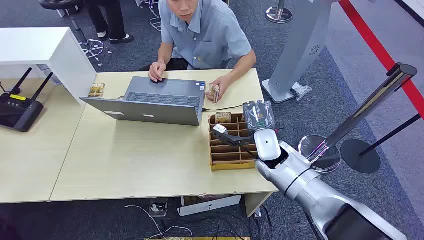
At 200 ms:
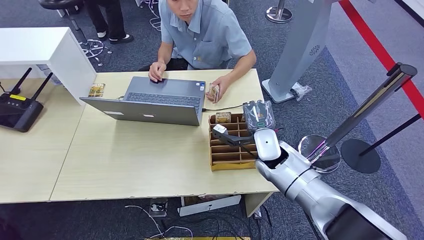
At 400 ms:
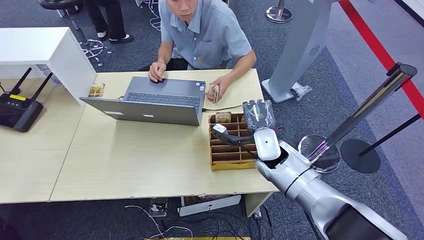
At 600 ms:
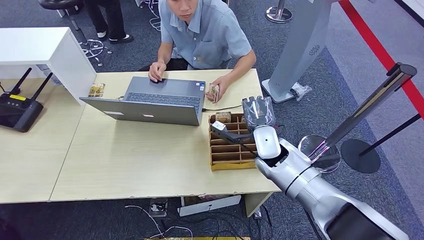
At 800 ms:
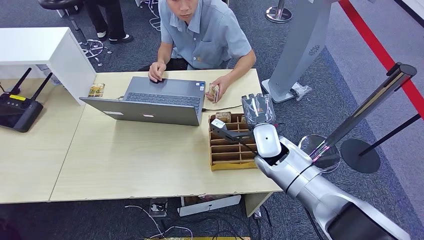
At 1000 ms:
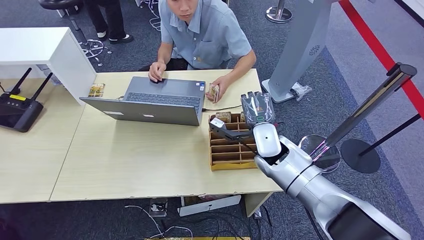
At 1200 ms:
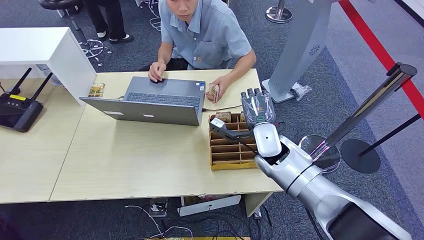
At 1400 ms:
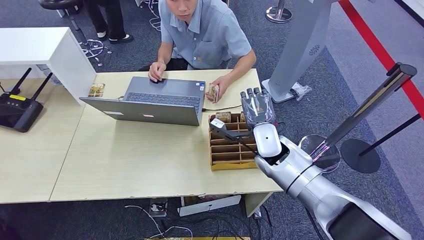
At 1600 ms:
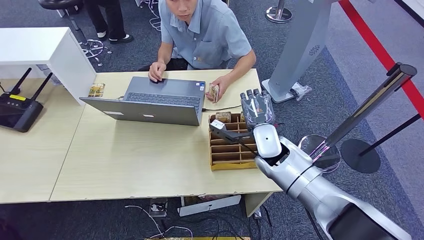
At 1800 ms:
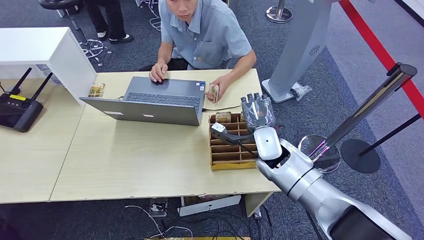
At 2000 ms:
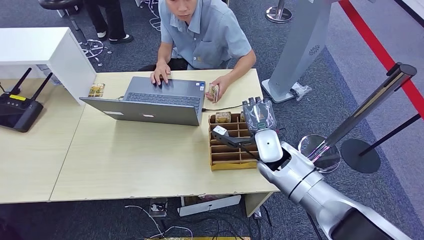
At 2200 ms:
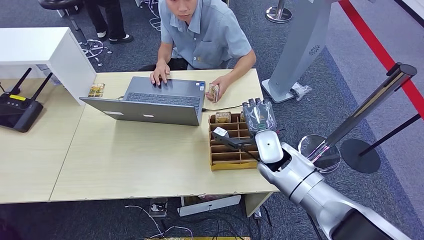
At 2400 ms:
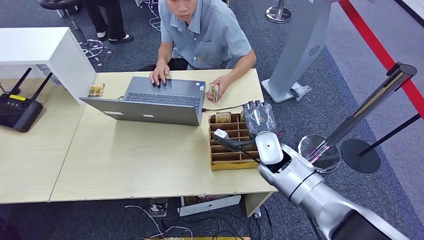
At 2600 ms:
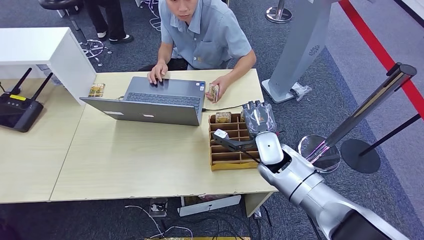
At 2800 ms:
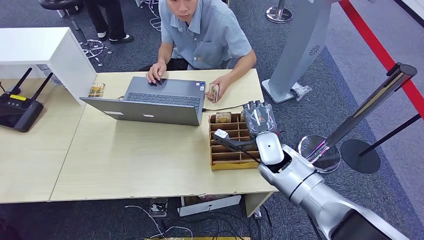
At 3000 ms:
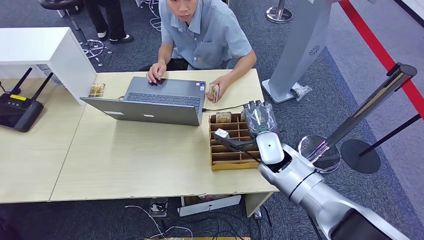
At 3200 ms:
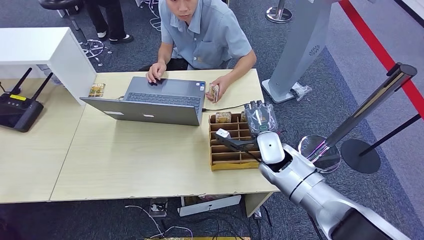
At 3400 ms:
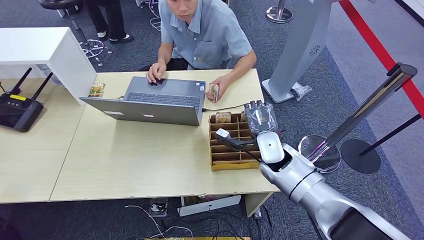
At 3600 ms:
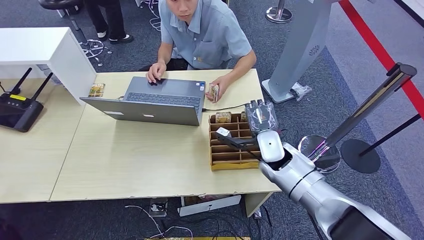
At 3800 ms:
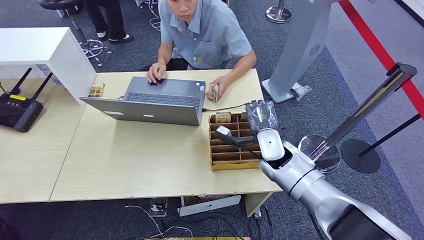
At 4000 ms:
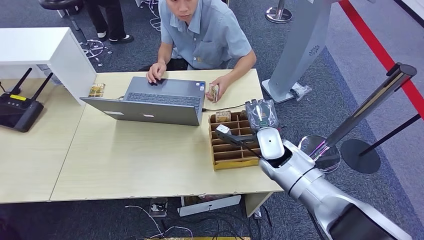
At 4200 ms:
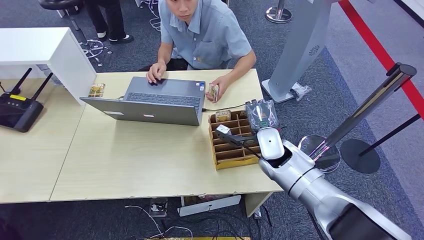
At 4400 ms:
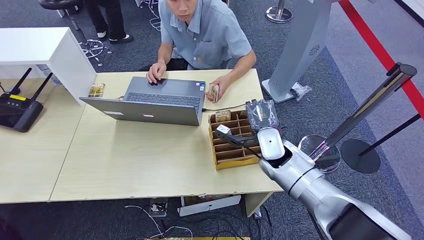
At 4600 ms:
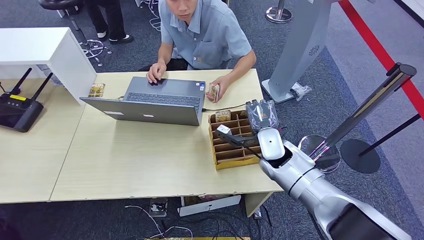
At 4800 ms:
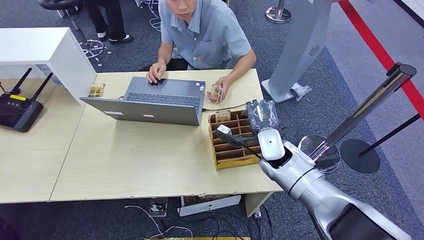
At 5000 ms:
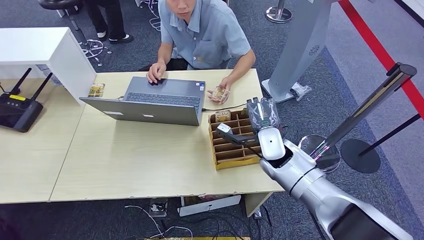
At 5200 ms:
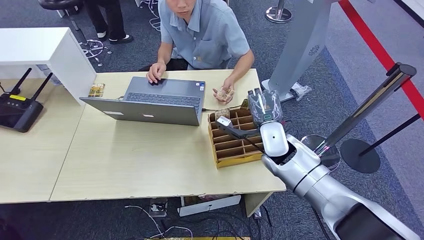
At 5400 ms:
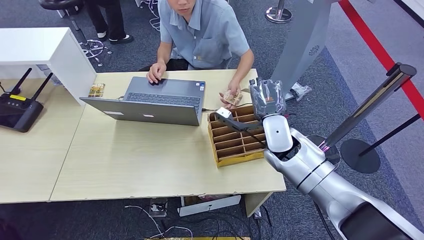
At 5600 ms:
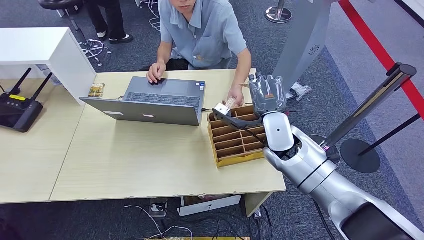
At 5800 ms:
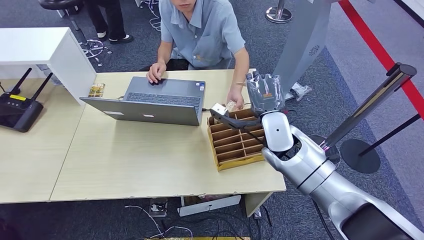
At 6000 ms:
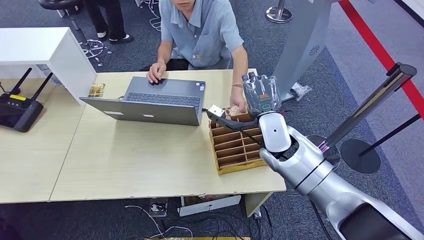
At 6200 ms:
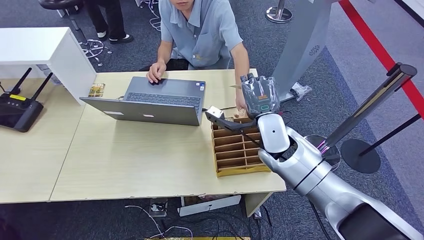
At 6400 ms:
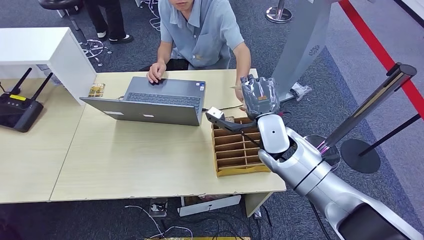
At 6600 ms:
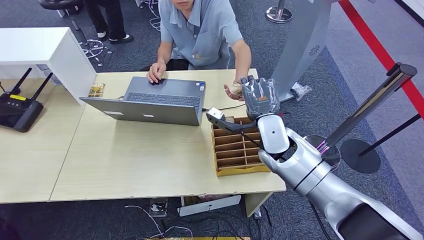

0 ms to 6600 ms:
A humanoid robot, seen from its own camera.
Step, 0 ms to 5600 ms: Pick up the room card from the card holder.
Step, 5800 ms to 6600 ms: Hand the room card to the target.
1600 ms to 3200 ms: The hands make only small movements.
3200 ms to 5000 ms: Both hands stay put.
5000 ms to 6600 ms: The right hand is displaced upward by approximately 5 cm.
